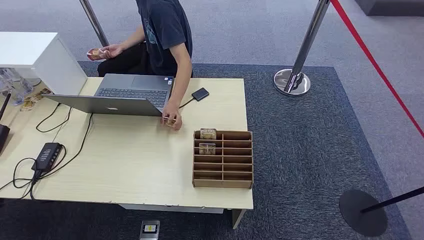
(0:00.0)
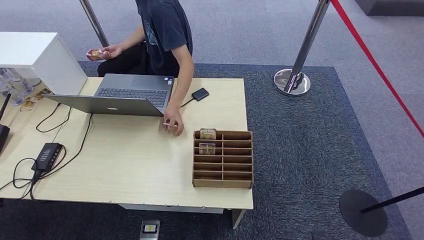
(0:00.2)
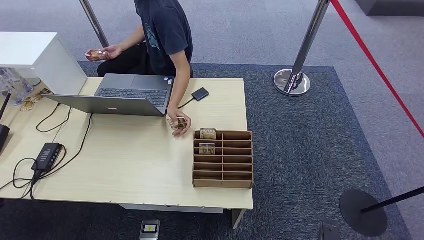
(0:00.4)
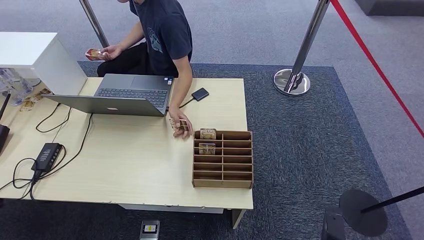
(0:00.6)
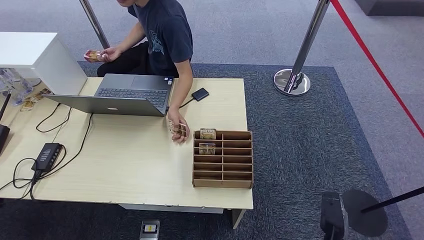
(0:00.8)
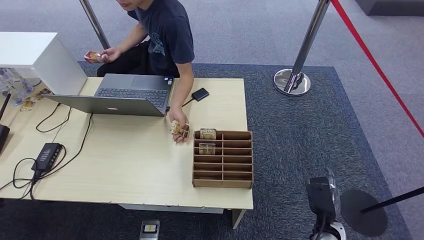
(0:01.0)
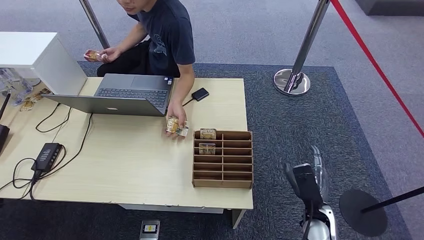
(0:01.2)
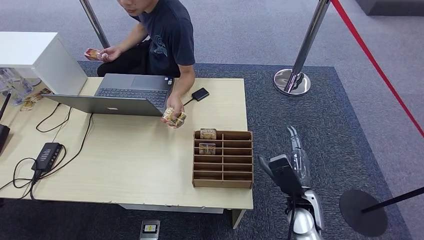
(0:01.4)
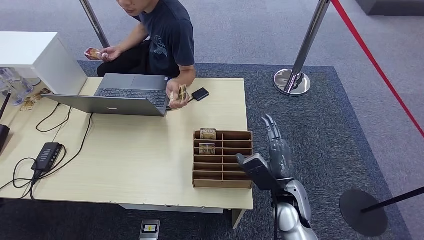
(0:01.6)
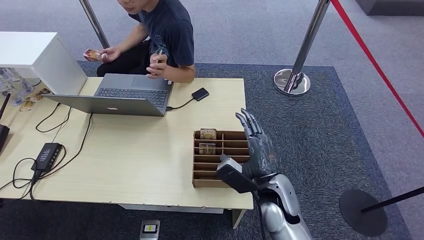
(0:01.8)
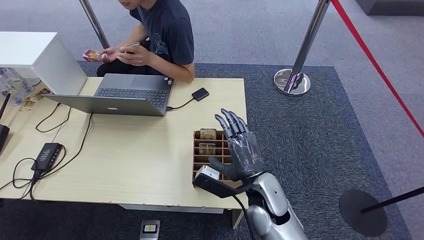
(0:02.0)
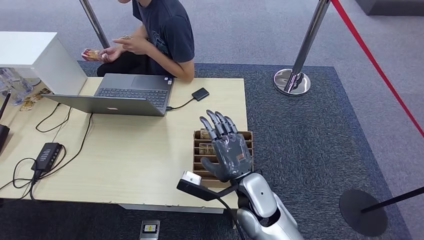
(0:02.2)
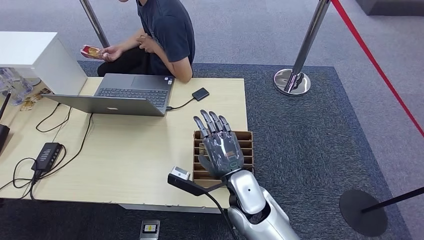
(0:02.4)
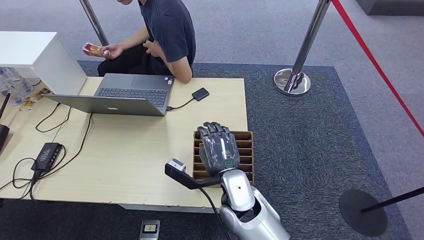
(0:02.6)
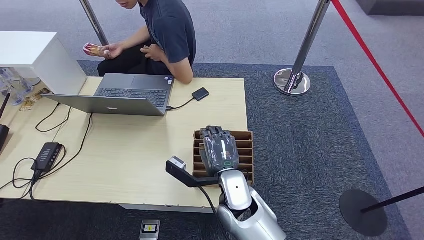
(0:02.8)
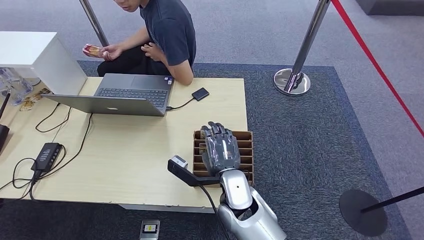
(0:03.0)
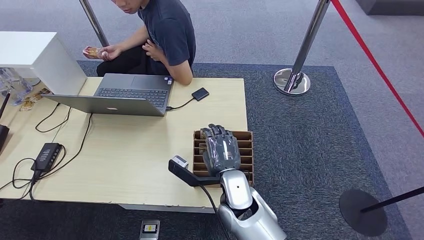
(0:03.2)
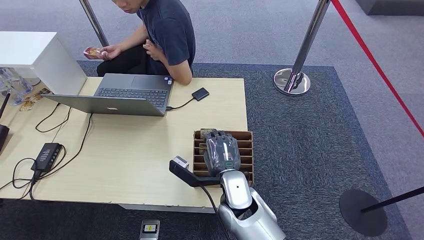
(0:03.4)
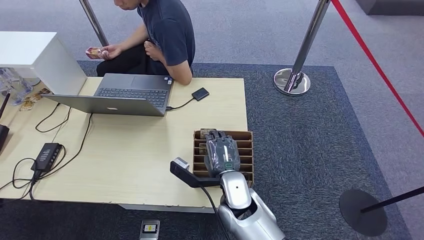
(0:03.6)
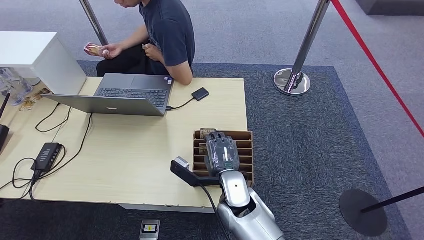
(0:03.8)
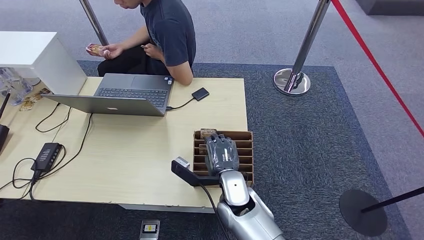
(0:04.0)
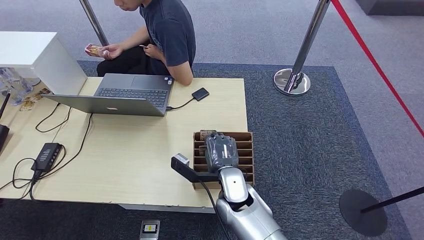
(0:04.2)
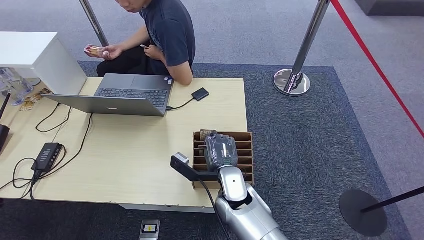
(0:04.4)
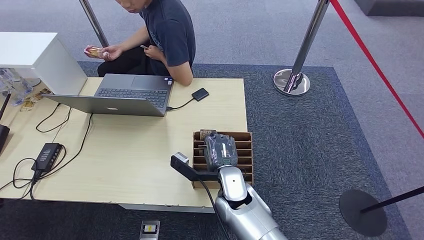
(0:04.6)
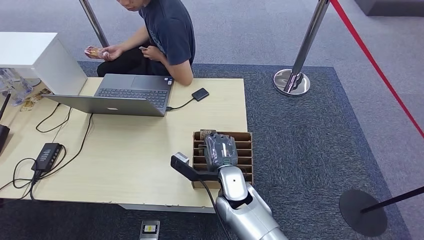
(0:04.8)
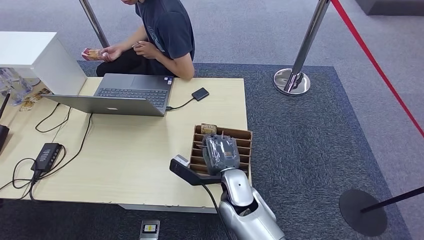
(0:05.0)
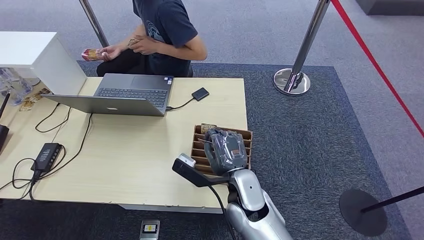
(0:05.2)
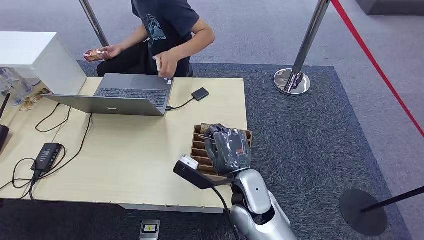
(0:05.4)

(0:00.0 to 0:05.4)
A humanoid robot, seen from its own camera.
Step, 0:00.0 - 0:05.2: Pick up the key card from the card box.
0:01.4 - 0:02.8: The right hand travels to the left by approximately 20 cm.
0:02.8 - 0:04.0: The hands stay close to where they were, moving slightly.
0:04.0 - 0:05.4: The right hand travels upward by about 5 cm.

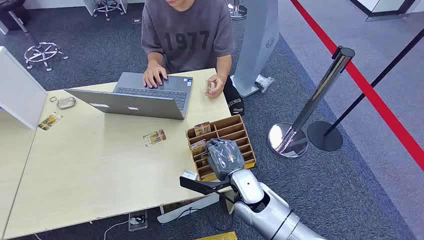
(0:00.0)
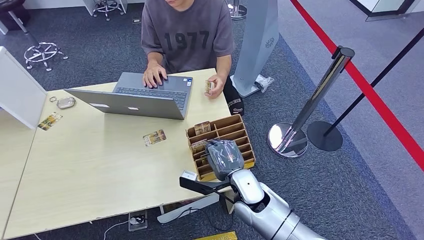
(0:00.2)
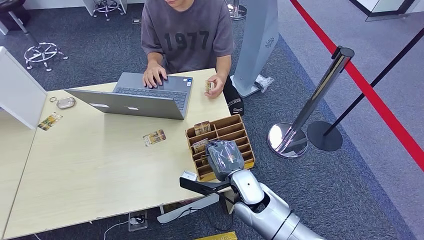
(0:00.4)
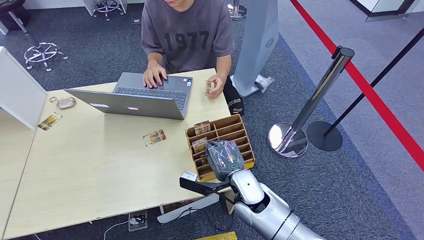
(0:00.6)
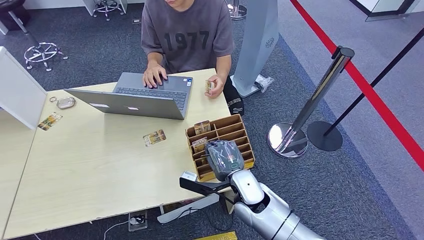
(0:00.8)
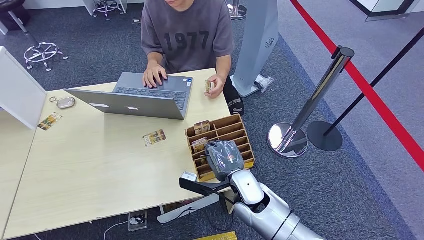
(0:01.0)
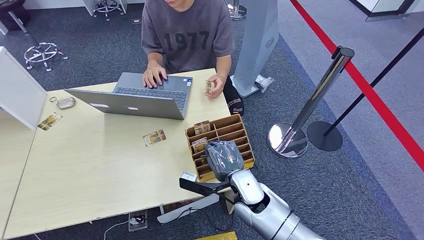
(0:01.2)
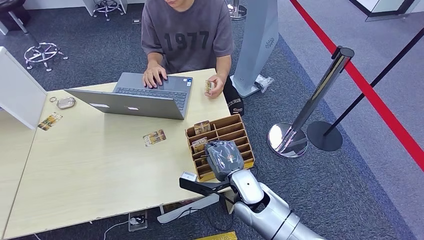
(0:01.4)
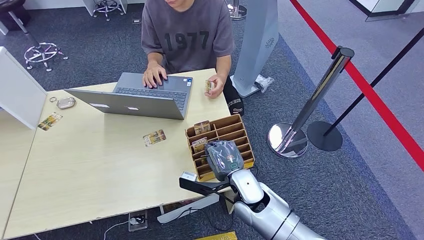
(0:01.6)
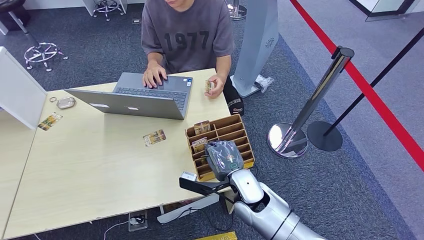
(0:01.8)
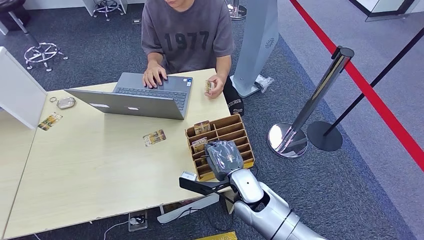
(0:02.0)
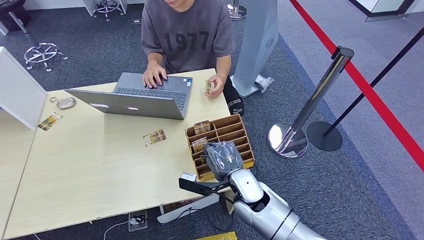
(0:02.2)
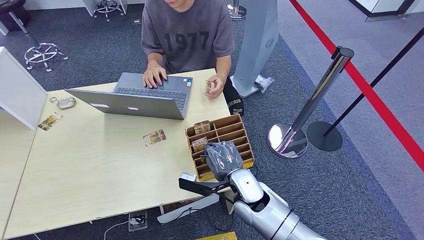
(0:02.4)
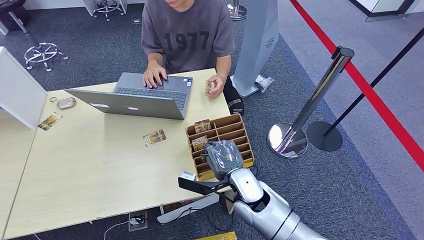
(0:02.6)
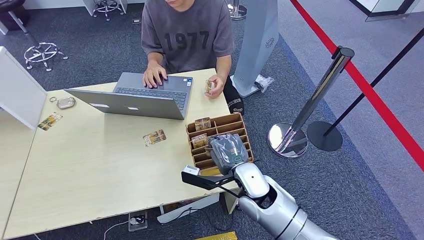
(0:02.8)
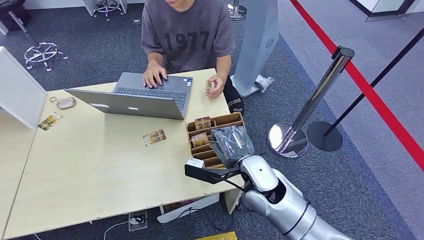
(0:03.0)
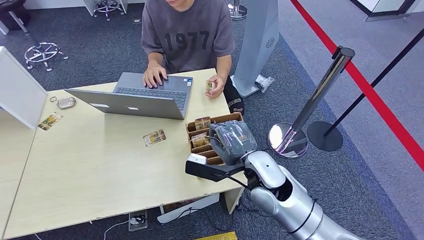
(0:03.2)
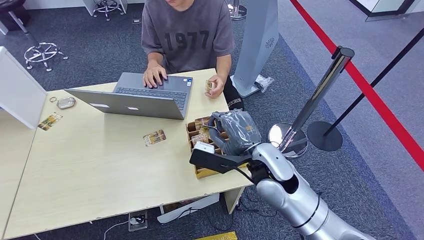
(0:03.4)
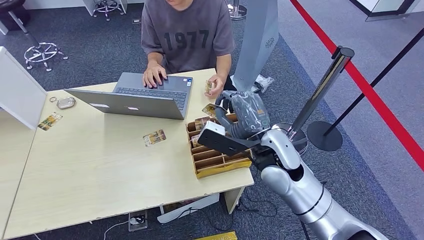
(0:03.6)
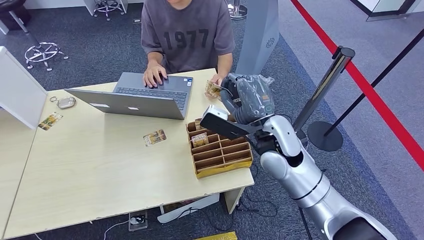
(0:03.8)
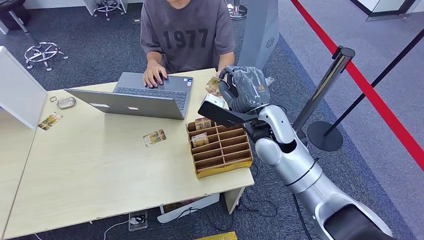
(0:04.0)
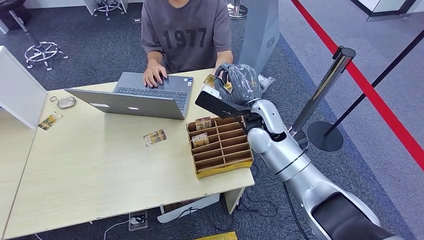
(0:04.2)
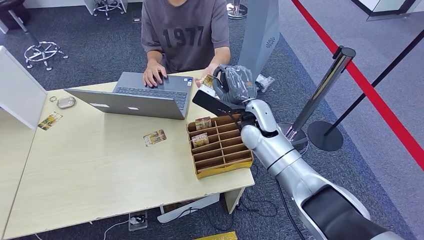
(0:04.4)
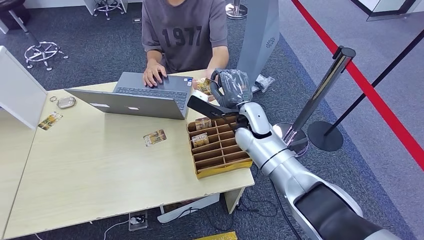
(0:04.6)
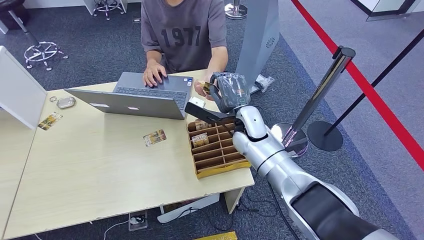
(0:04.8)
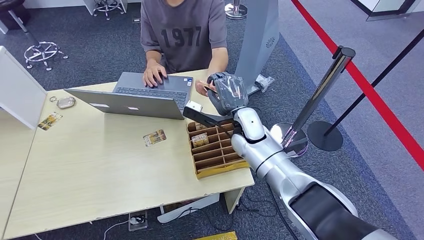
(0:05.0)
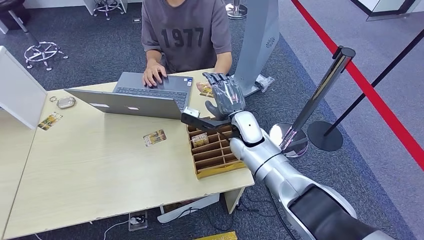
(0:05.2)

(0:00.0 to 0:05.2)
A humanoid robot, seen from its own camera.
Step, 0:04.4 - 0:05.2: Hand the key card to the target.
0:01.8 - 0:03.4: The right hand is displaced upward by approximately 10 cm.
0:03.4 - 0:05.2: The right hand goes approximately 15 cm forward.
